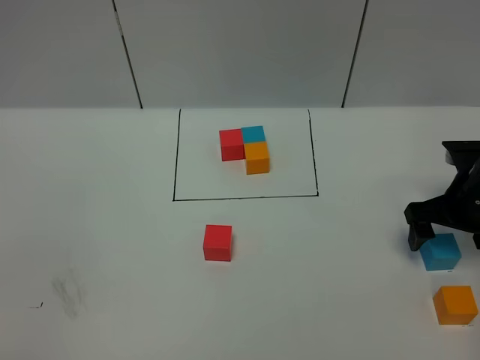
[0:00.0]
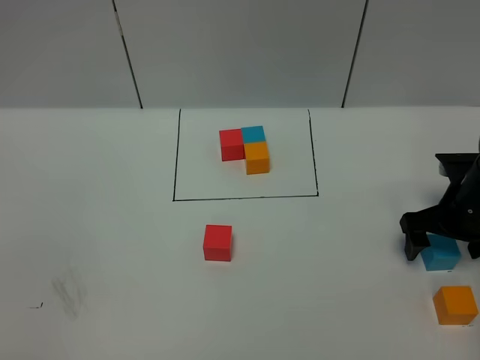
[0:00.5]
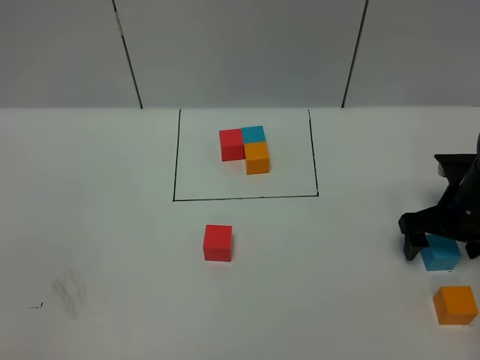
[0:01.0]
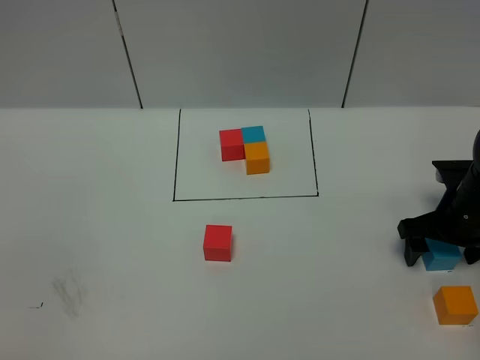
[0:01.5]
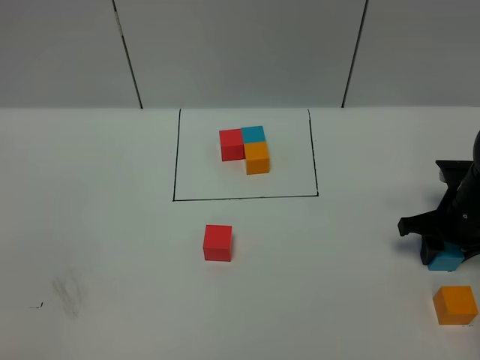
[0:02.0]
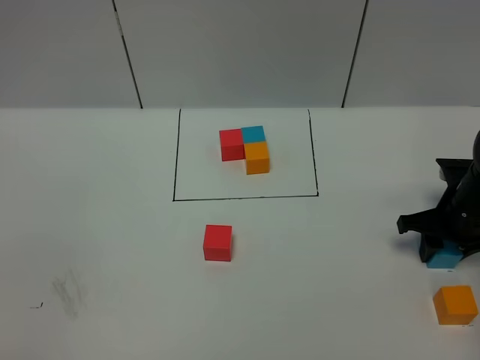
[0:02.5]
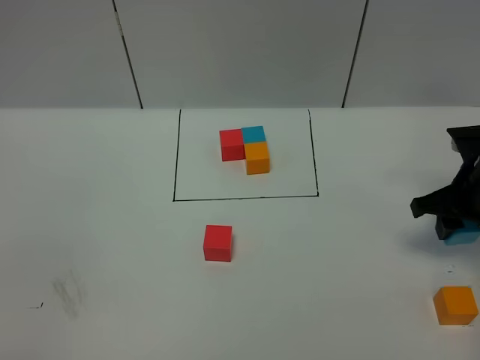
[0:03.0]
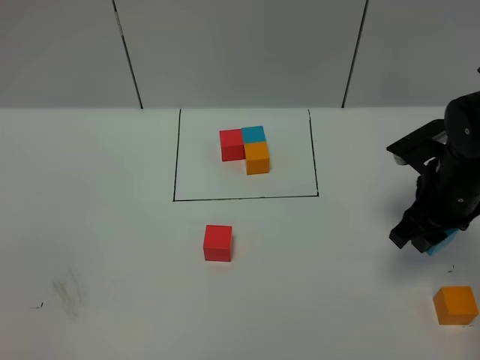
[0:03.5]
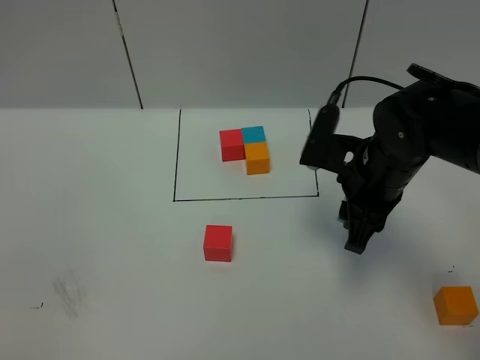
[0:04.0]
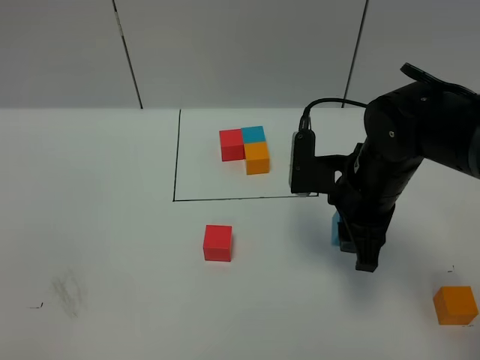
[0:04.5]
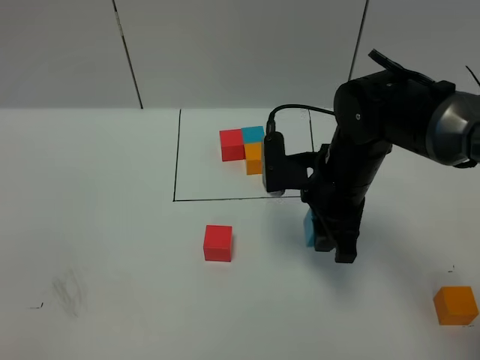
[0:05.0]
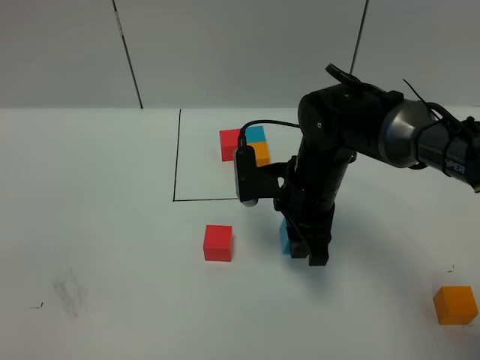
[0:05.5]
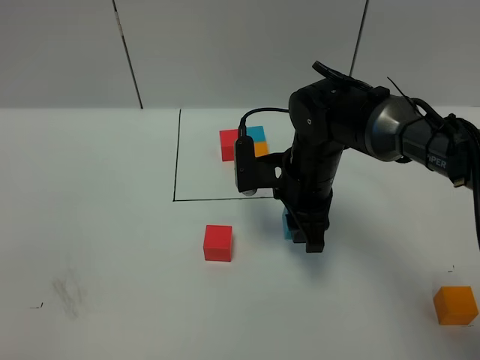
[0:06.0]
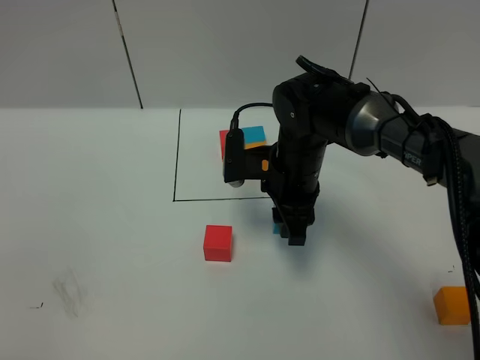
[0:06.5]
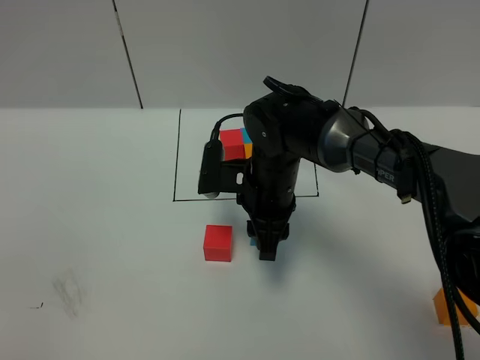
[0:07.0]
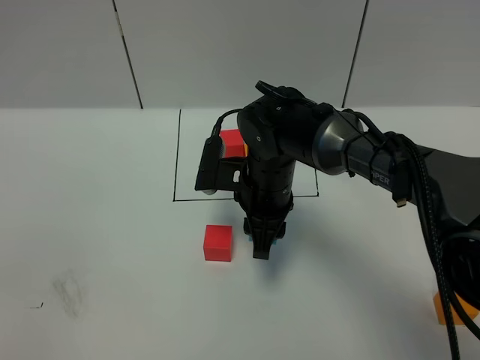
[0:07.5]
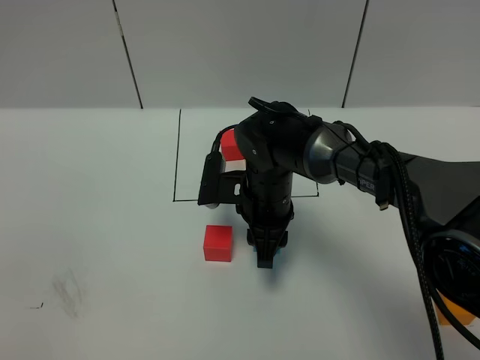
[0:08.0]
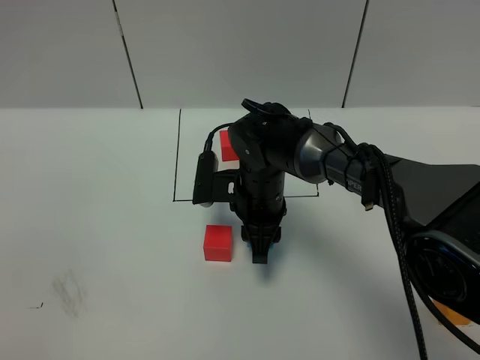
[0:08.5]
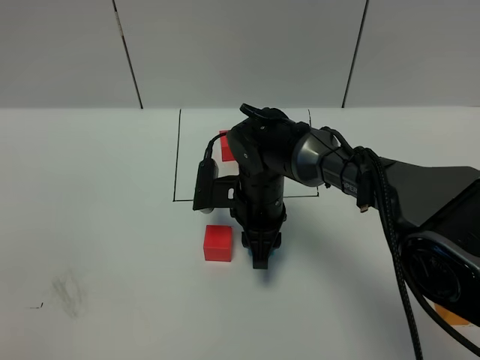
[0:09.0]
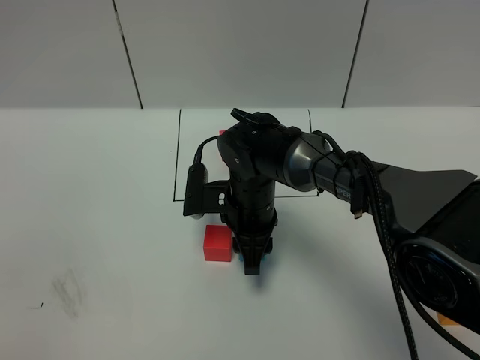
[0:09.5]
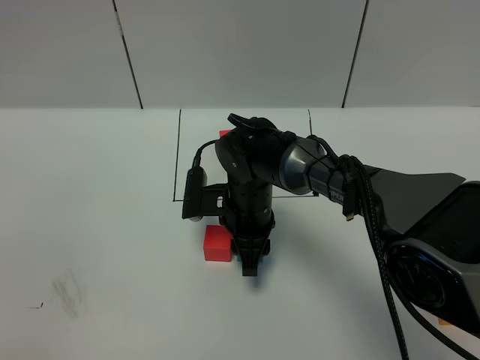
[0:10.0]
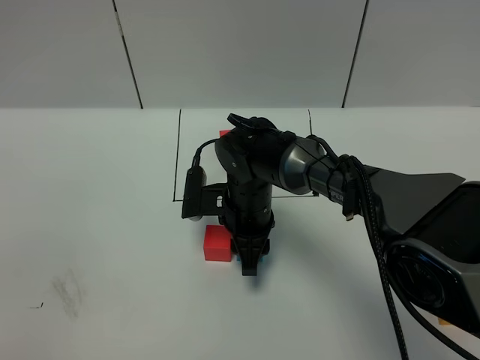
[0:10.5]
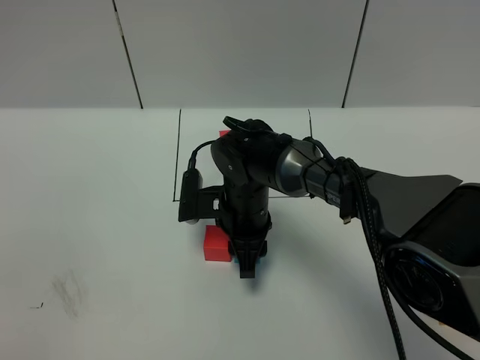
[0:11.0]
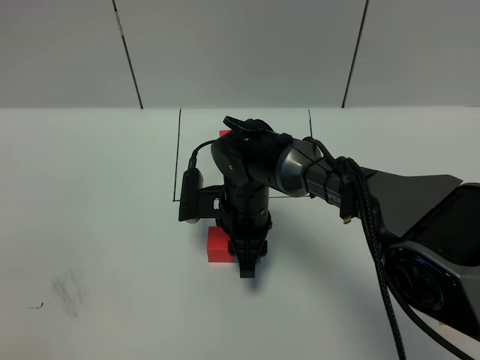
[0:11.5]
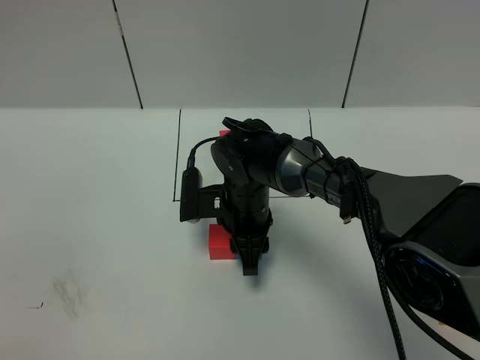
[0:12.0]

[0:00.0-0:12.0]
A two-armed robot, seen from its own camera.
Task of the whole recording: According to the building block template in front, assemble the scattered blocks together.
0:00.0 to 0:02.0: The right gripper closes up.
0:02.0 to 0:04.0: The right gripper is displaced to the left and upward by some 20 cm.
0:04.0 to 0:06.0: The right gripper goes about 5 cm to the left.
0:06.0 to 0:08.0: The right gripper goes roughly 5 cm to the left.
0:08.0 to 0:10.0: The grippers stay close to where they were, moving slightly.
0:10.0 to 0:12.0: Neither gripper changes place.

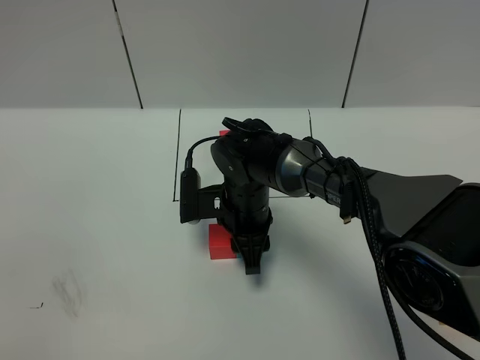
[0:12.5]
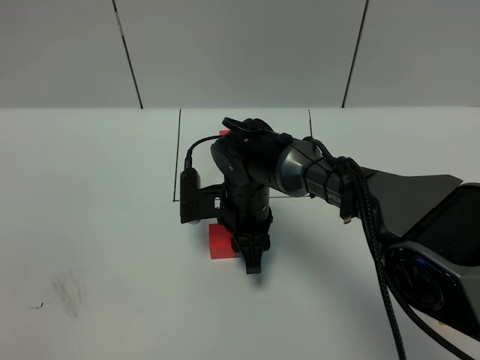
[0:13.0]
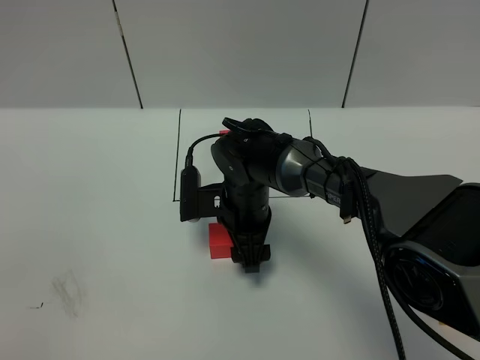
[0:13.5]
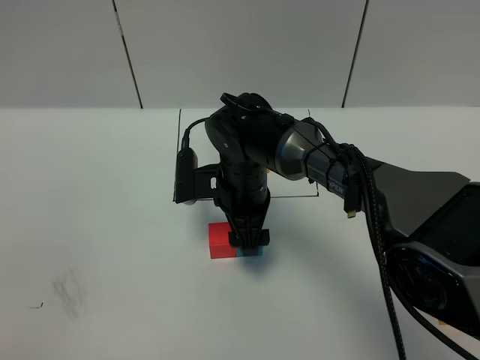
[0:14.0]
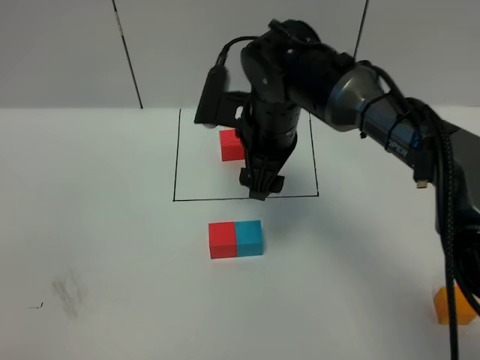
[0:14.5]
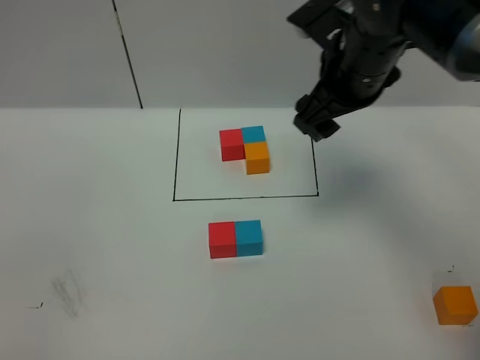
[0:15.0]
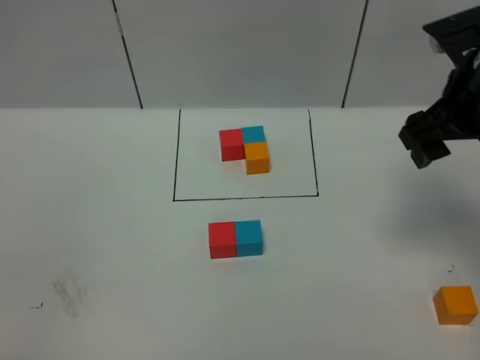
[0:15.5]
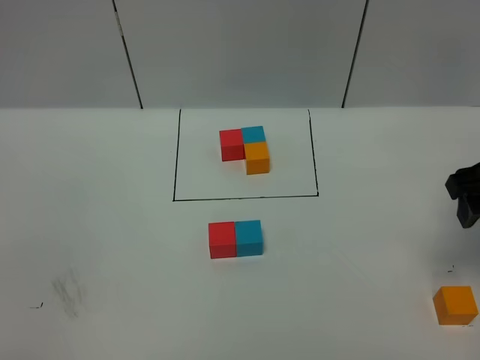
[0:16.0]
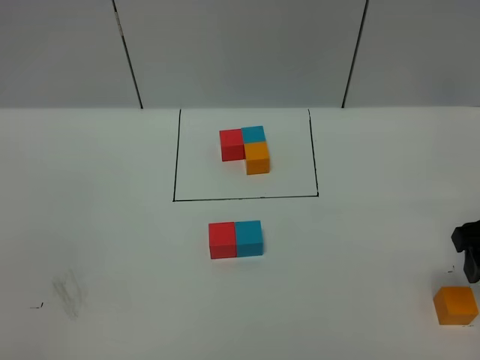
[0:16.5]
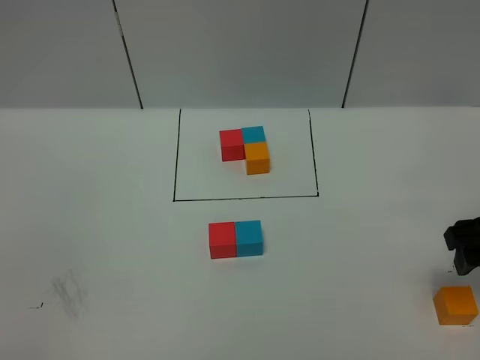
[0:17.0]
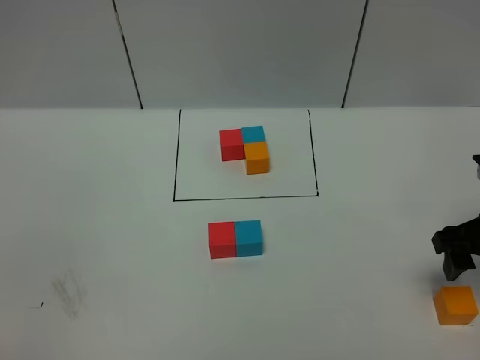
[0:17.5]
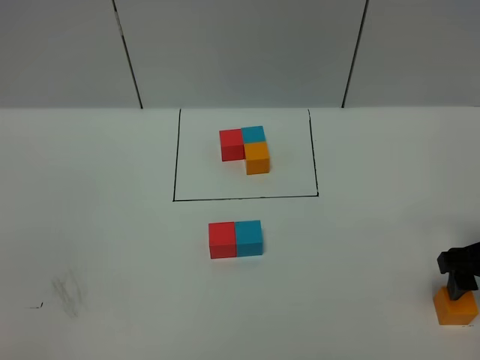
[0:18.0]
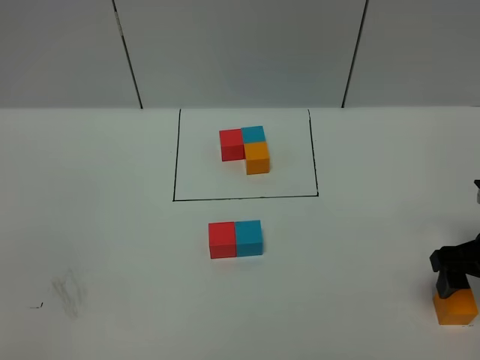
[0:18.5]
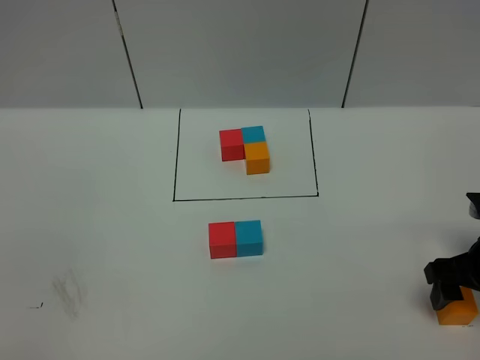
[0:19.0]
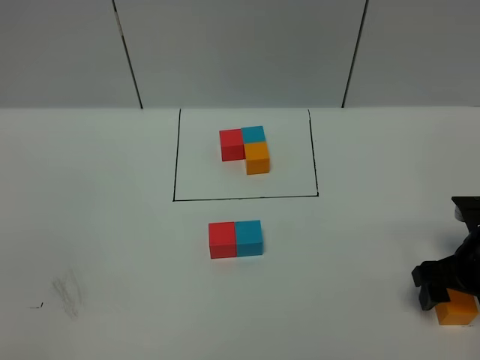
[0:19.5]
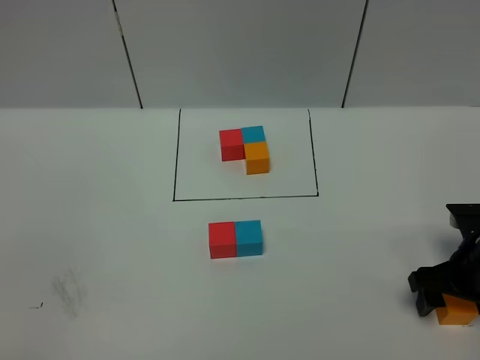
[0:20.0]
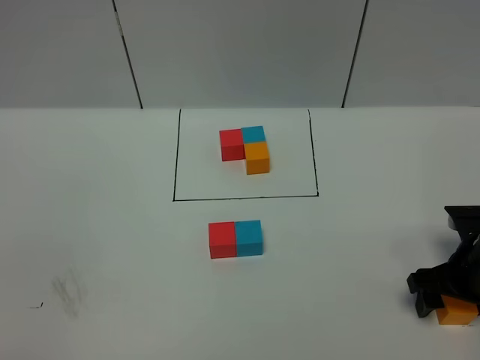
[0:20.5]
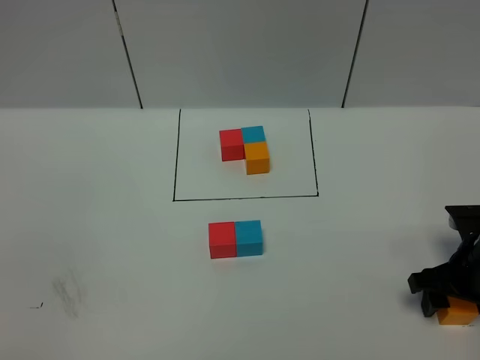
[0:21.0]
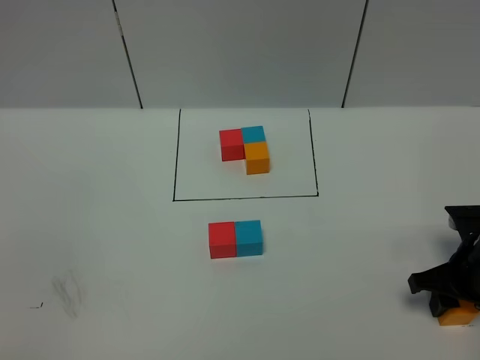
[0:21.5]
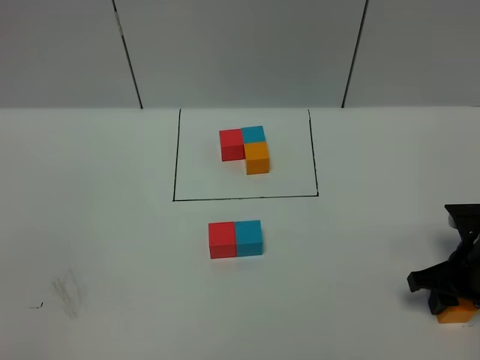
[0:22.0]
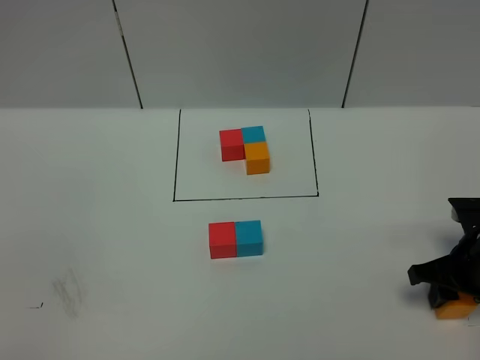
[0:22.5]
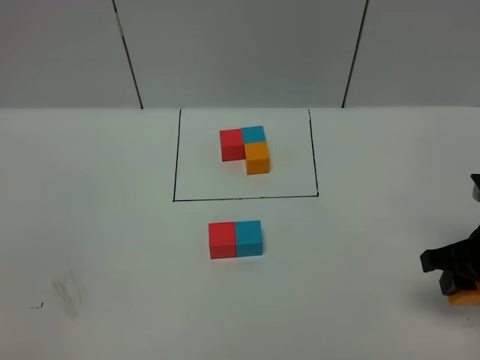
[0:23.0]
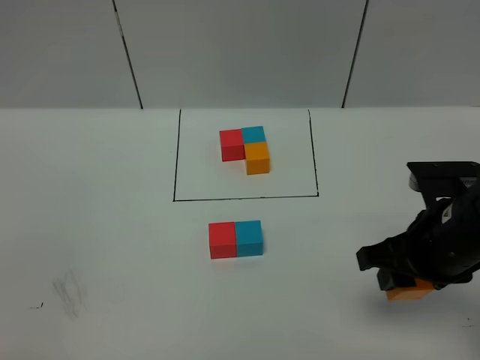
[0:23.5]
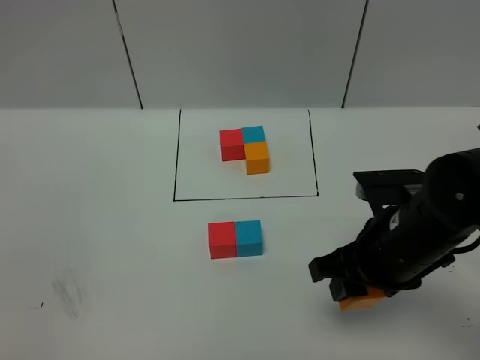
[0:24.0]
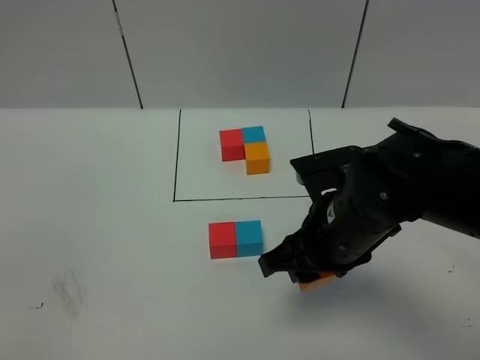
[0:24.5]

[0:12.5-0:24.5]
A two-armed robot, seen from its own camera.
Task of the whole recording: According to the building block template in front, assemble the scattered blocks together.
0:12.5 to 0:14.5: The right gripper shifts about 15 cm upward, and opens.
0:14.5 to 0:16.5: The right gripper heads to the right and backward, covering approximately 30 cm.
0:16.5 to 0:18.5: The right gripper shifts roughly 5 cm downward.
0:18.5 to 0:20.5: The right gripper goes about 5 cm downward.
0:20.5 to 0:22.5: The right gripper closes up.
0:22.5 to 0:24.5: The right gripper travels to the left and upward by approximately 20 cm.

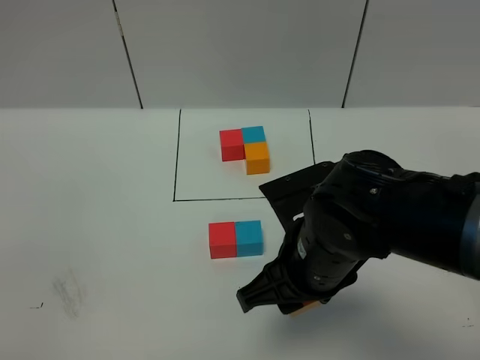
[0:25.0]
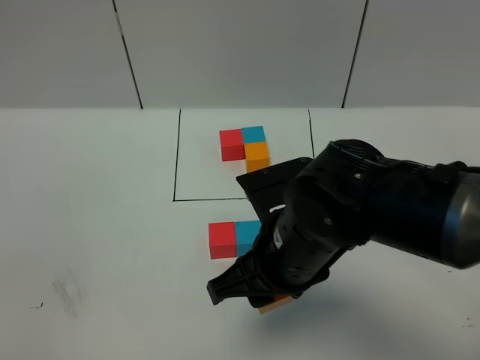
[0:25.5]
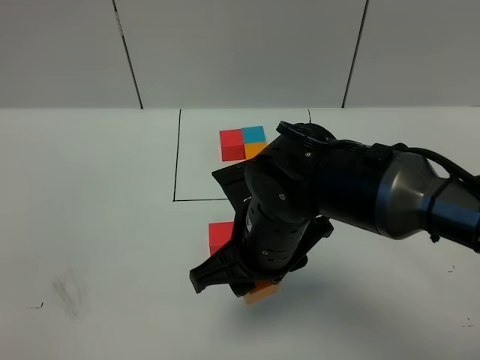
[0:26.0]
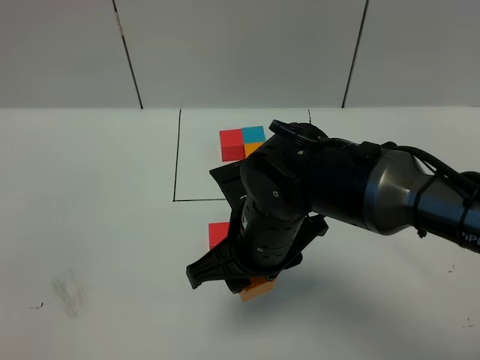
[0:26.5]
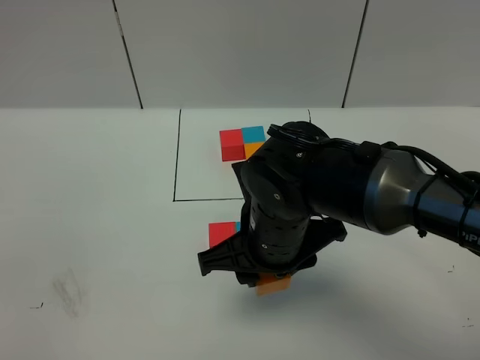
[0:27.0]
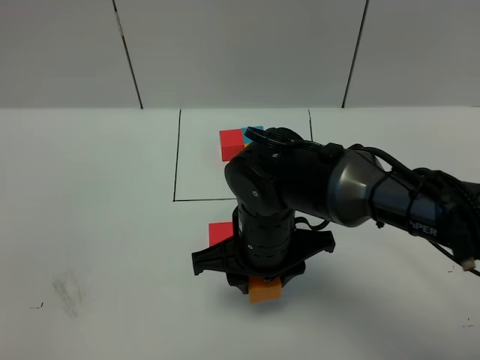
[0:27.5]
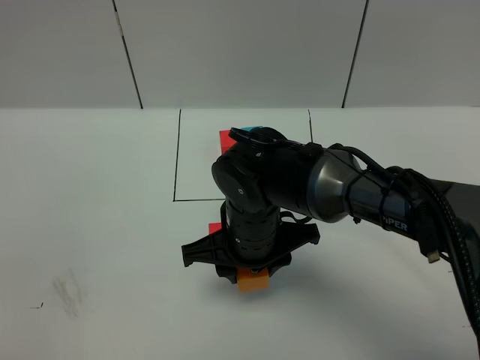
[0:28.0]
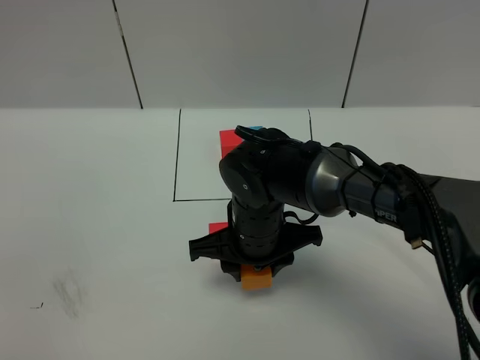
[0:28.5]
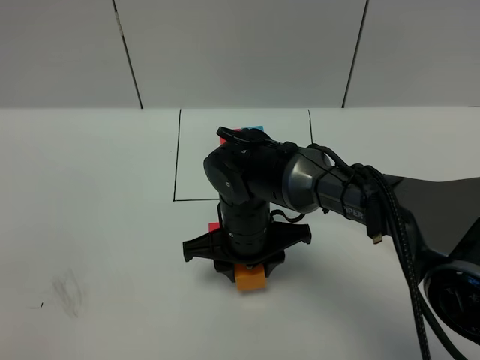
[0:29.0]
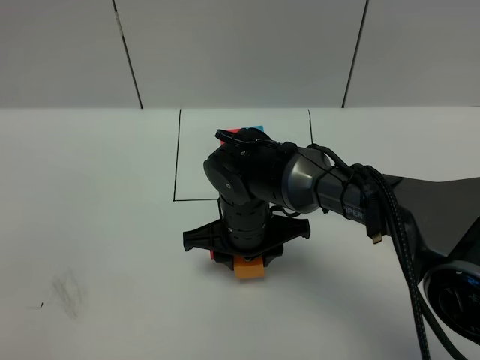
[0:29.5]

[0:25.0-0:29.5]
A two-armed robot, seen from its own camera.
Task of the whole recording: According to the building block template in front, assemble the scattered blocks together.
0:25.0 to 0:27.0: The right gripper changes place by about 5 cm.
0:27.0 to 0:29.5: The right gripper moves downward and forward, roughly 10 cm.
